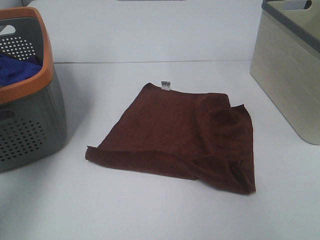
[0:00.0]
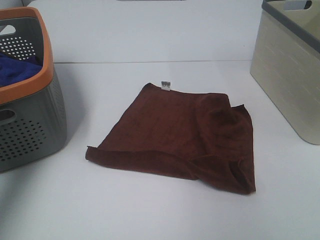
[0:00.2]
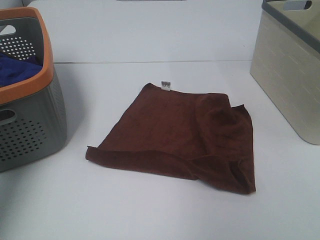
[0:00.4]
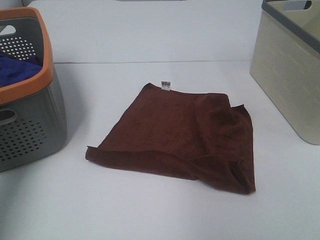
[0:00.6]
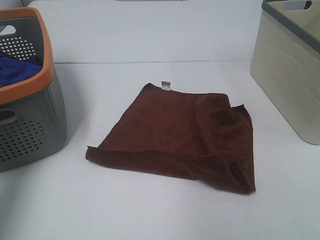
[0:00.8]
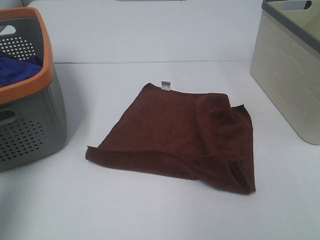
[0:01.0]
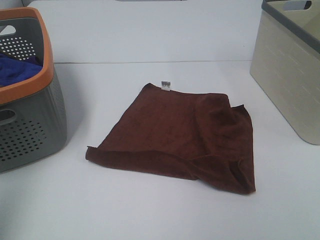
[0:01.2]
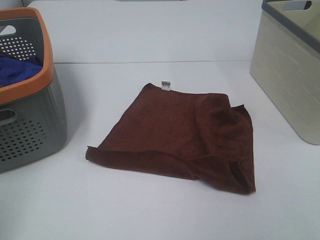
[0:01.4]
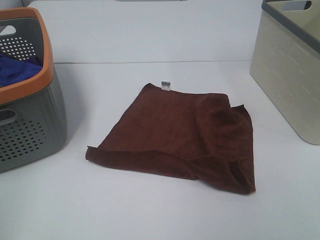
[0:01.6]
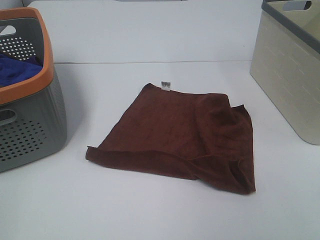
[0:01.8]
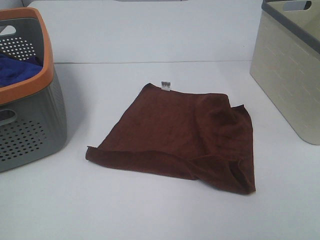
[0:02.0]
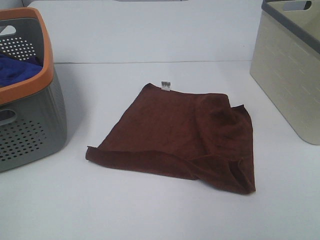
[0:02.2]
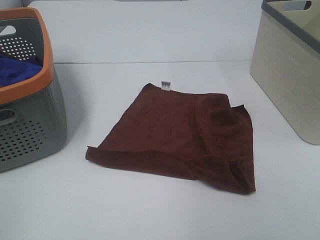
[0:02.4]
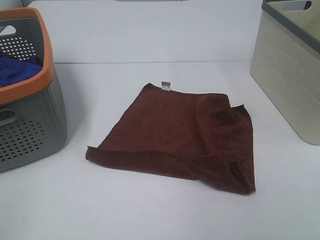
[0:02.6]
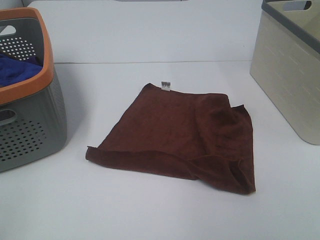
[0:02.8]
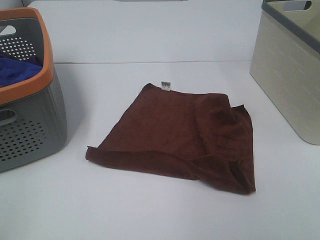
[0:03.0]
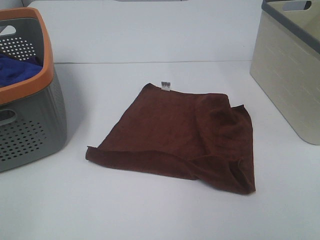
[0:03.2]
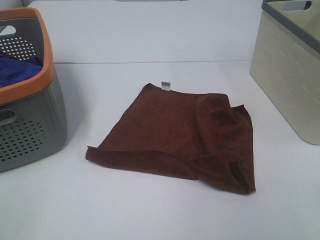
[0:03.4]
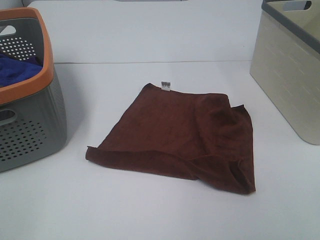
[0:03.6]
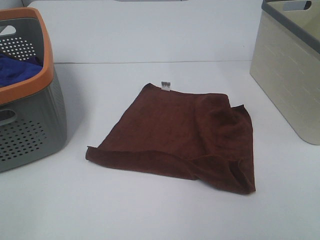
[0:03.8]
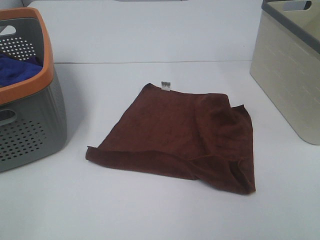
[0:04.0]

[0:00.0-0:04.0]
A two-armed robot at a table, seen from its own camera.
Task of the whole recording: Remove the towel and place it.
0:00.0 to 0:01.4: The left gripper is displaced backward by approximately 35 cm.

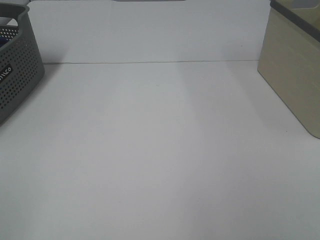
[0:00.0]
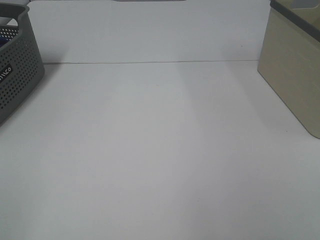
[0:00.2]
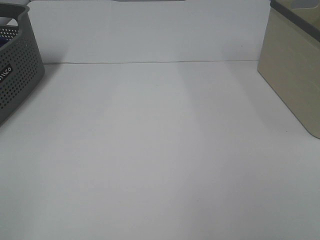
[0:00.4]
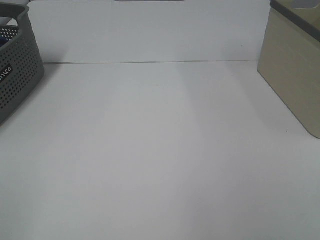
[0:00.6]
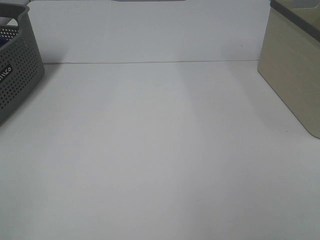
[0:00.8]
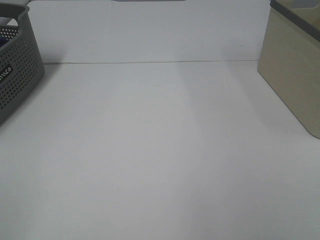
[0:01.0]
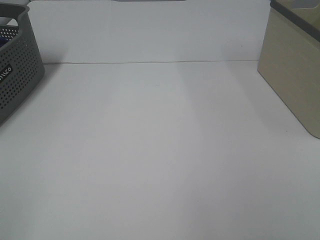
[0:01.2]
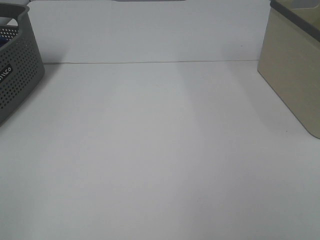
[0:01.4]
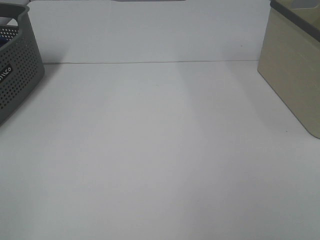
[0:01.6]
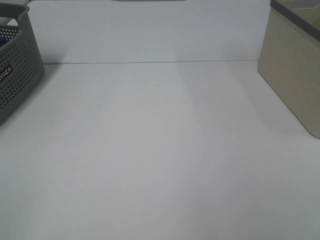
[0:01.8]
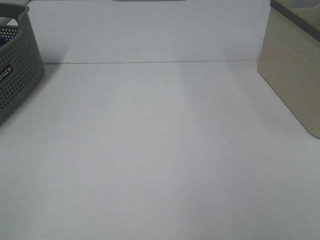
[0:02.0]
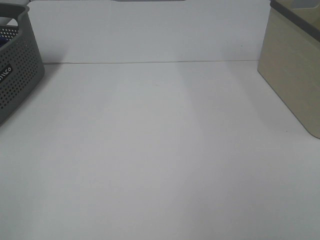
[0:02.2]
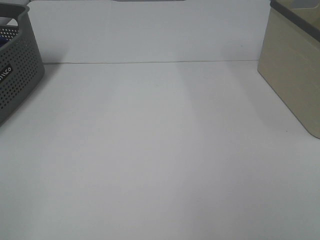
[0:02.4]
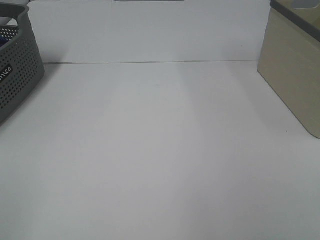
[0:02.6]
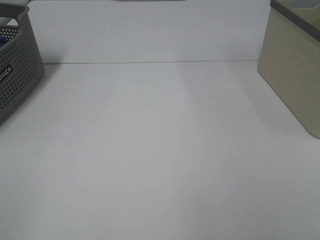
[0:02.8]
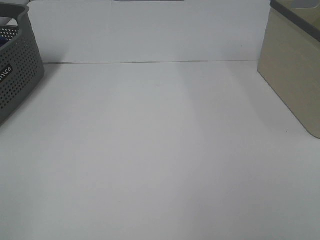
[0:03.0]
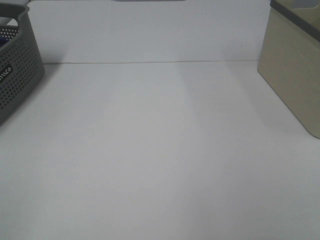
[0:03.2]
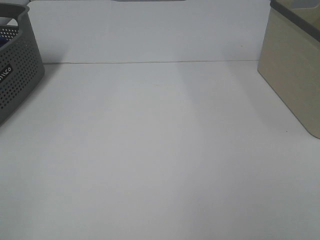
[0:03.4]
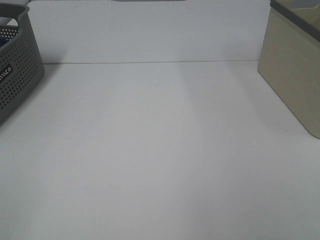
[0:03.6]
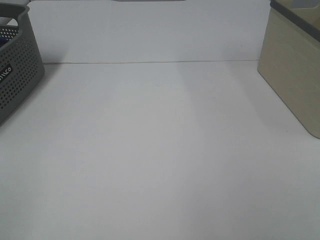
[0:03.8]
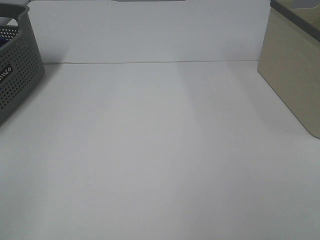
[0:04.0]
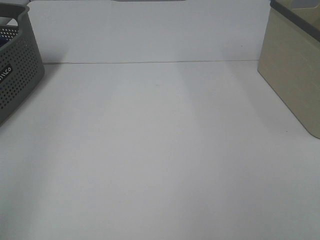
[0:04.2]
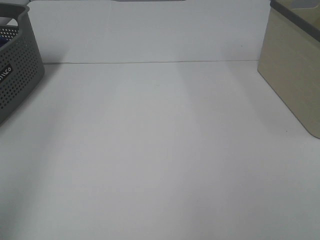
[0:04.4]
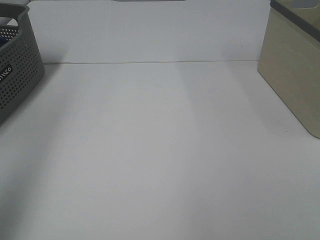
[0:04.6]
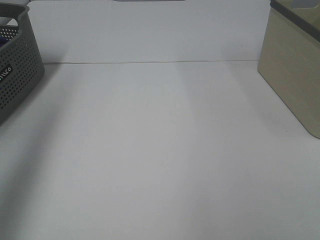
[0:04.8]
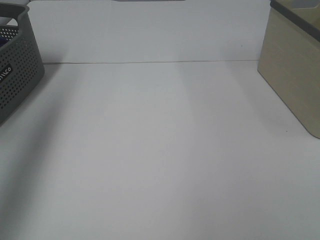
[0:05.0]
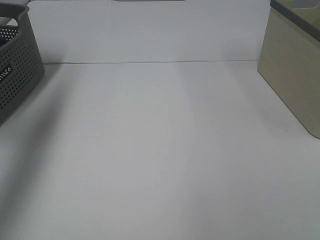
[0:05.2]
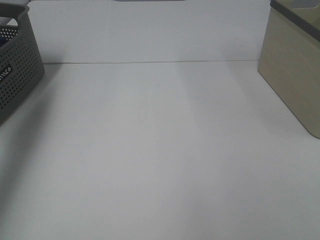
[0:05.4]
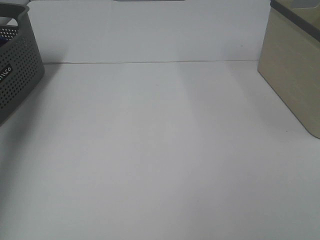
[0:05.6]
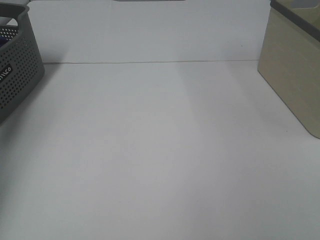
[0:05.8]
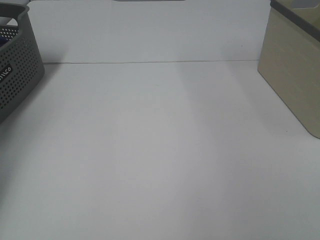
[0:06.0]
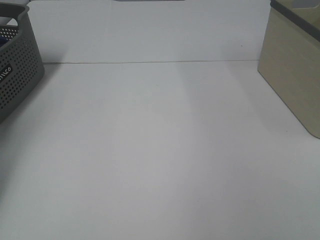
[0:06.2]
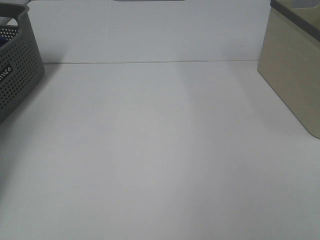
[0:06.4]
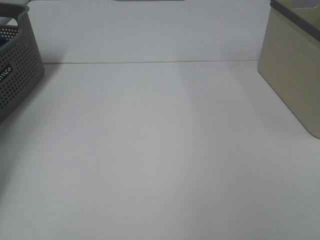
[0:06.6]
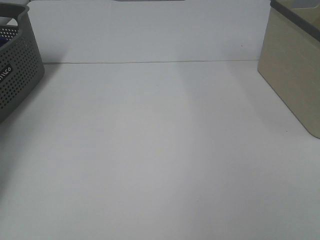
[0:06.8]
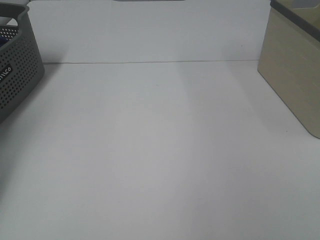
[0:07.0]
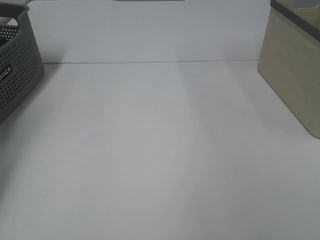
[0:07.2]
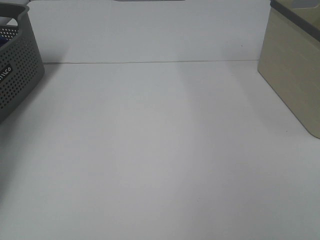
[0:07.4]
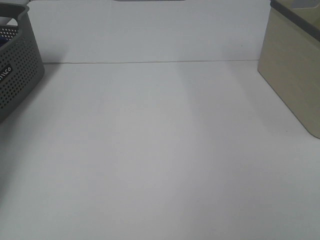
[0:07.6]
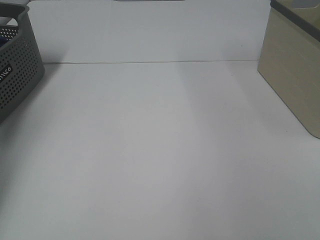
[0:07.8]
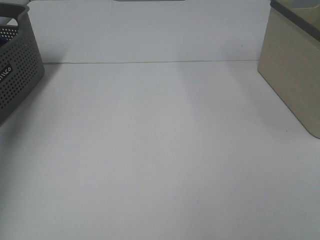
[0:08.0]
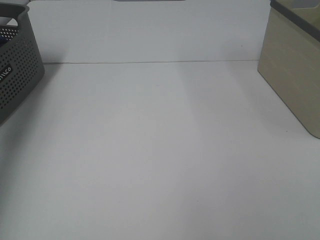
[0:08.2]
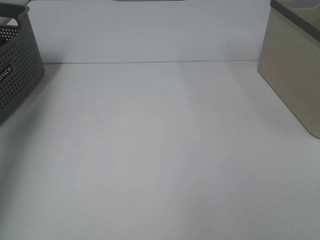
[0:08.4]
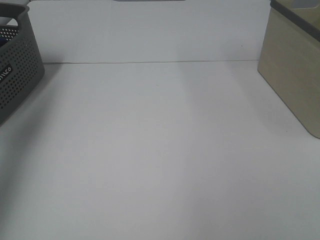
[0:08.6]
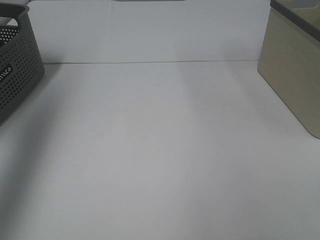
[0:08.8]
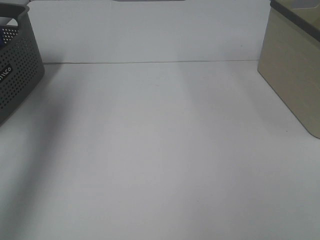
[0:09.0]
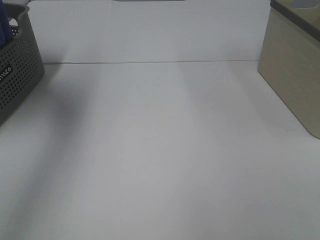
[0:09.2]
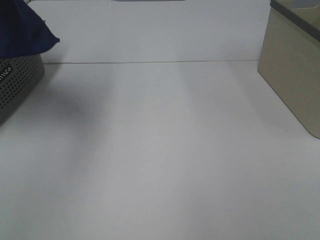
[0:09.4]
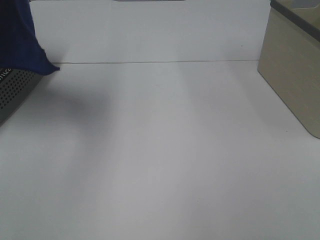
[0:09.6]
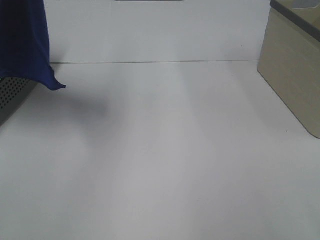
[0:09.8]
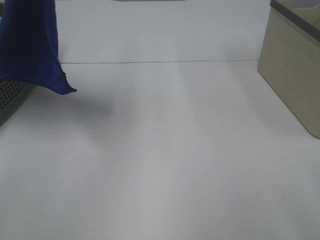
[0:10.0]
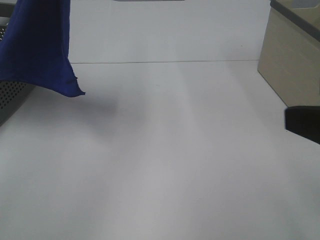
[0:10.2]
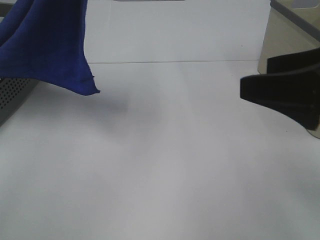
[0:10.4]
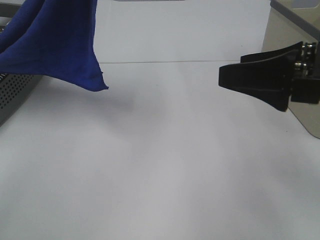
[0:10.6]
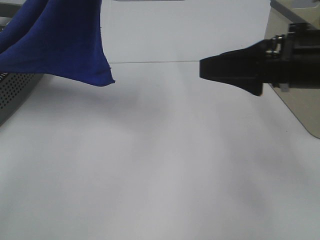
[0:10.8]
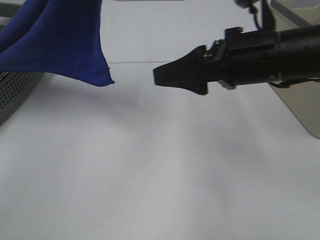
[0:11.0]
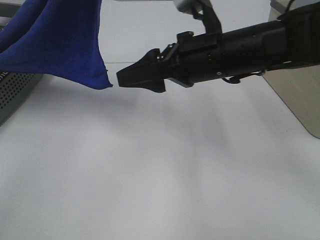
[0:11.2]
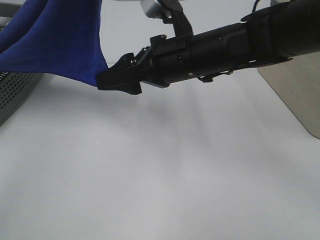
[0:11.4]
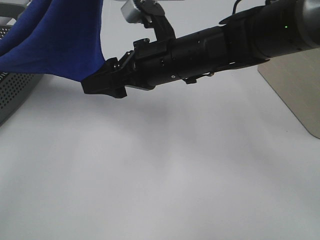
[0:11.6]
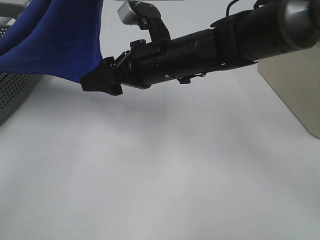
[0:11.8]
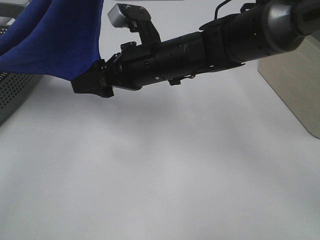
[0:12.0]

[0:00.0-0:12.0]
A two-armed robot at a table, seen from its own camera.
Task of the whole recording: Remove the towel and place it.
0:00.0 to 0:03.0: Both grippers stay about where they are.
0:04.4 to 0:06.0: The left gripper moves forward and downward, about 40 cm.
0:07.6 to 0:09.0: The left gripper shifts some 40 cm upward and backward.
0:09.0 to 0:10.4: The left gripper moves to the right and downward, about 20 cm. Meanwhile the right gripper moves forward and to the left, roughly 15 cm.
0:10.4 to 0:12.0: The right gripper is displaced to the left, forward and downward by some 30 cm.

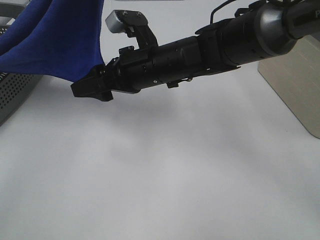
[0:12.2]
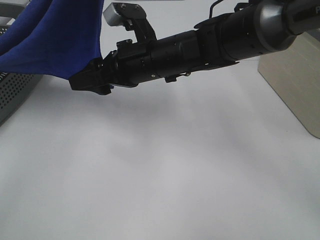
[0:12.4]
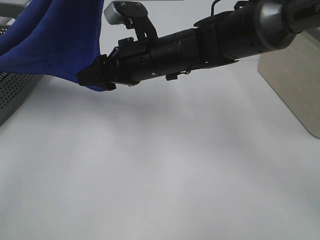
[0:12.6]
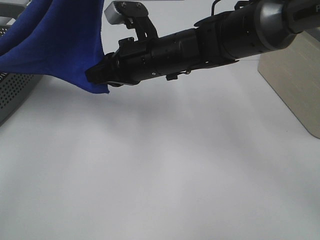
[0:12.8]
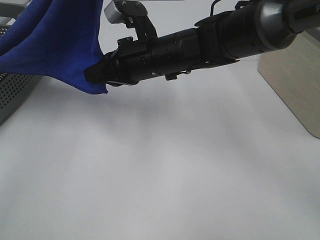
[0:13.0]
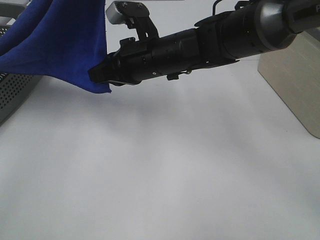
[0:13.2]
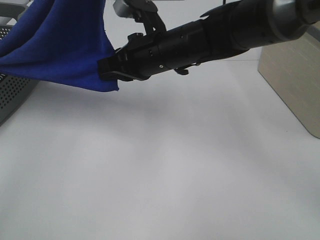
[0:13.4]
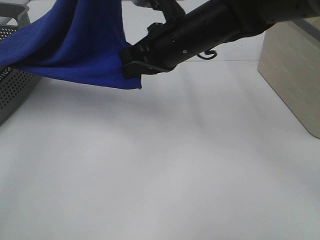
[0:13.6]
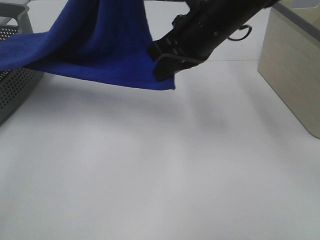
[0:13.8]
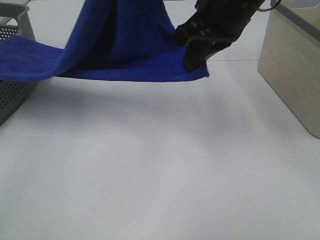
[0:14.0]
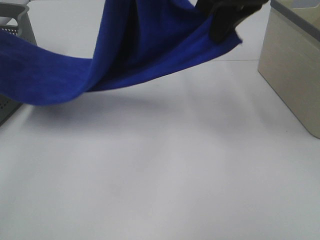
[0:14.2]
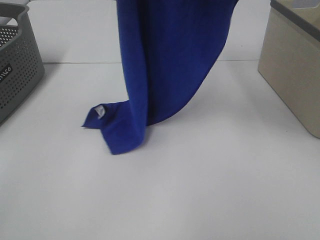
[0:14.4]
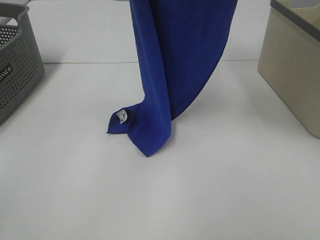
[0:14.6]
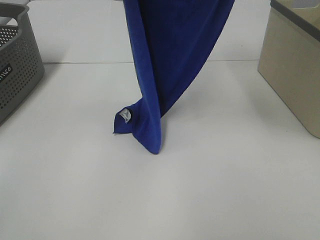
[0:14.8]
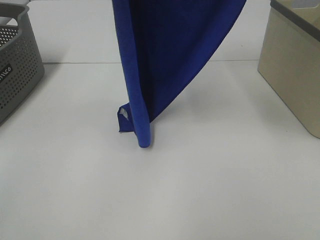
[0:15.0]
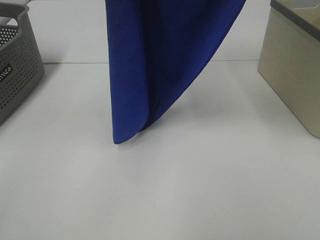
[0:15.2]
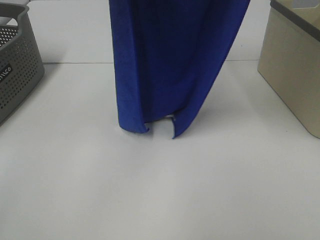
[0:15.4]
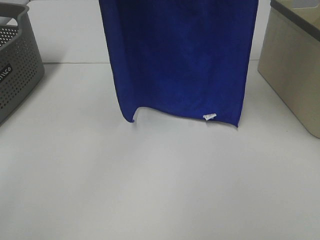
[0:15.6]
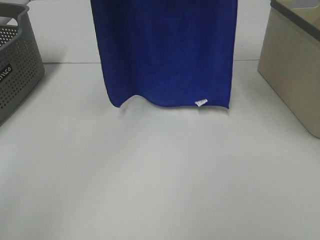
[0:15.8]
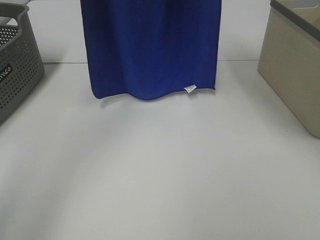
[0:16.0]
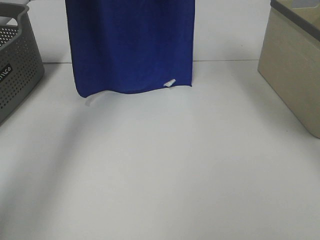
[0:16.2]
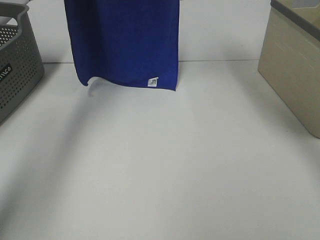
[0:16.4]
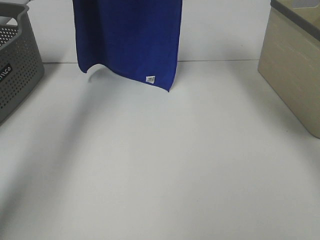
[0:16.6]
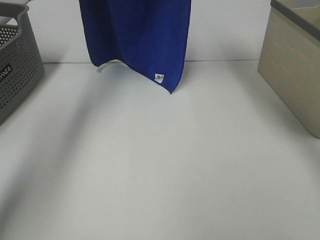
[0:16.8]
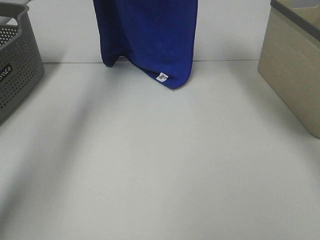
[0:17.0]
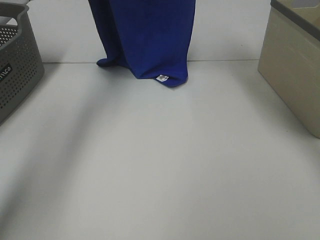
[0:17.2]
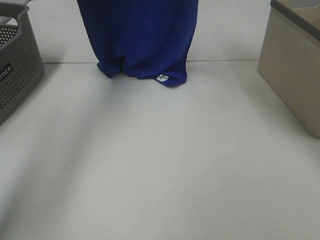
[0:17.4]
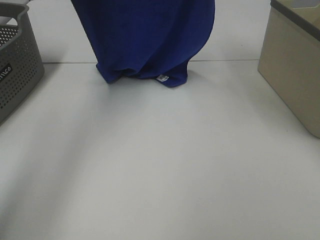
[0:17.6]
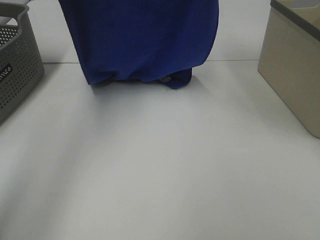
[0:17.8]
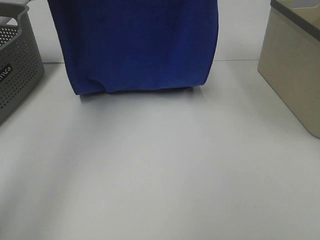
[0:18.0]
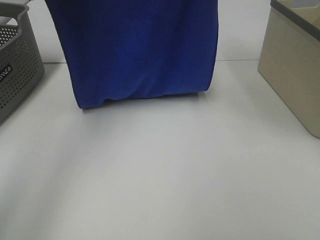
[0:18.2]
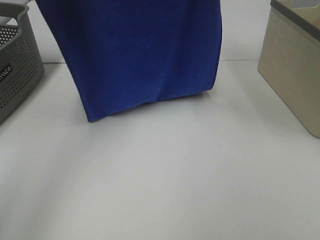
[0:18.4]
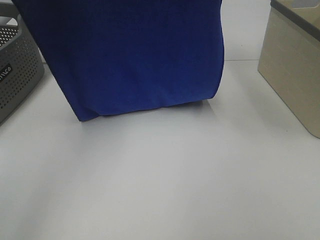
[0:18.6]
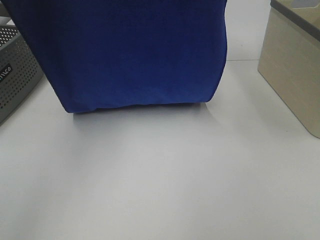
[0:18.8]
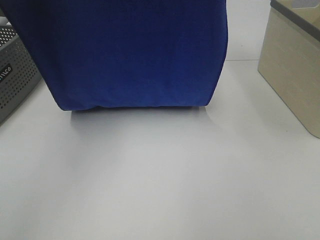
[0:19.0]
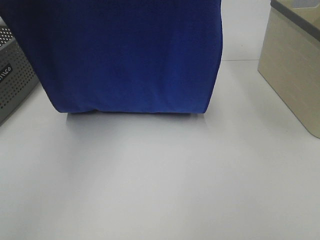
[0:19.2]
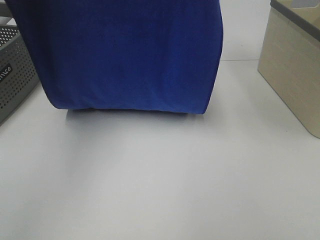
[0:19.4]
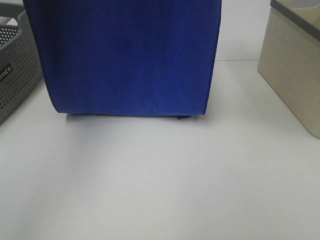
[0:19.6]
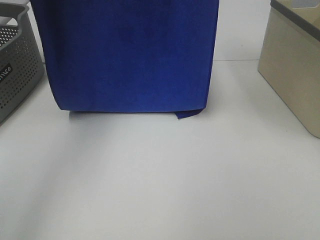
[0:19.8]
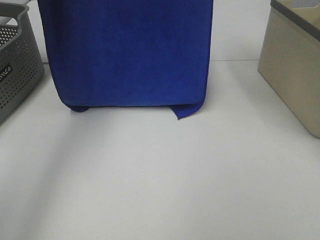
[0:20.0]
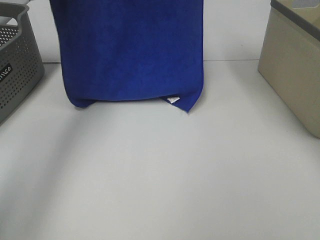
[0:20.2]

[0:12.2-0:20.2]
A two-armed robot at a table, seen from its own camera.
Task of the whole recording: Remove the towel and place it.
0:12.2 to 0:13.8: The right gripper heads upward and to the right, covering some 10 cm, and closes up.
0:13.8 to 0:15.4: The right gripper is displaced upward by roughly 25 cm. Meanwhile the left gripper moves upward, approximately 5 cm.
0:15.4 to 0:17.0: The left gripper heads forward, covering roughly 20 cm; the right gripper heads forward and downward, covering some 20 cm.
0:17.0 to 0:18.6: Both grippers move backward, some 20 cm.
0:18.6 to 0:20.2: The right gripper travels forward and upward by some 15 cm. The left gripper is displaced forward by roughly 10 cm.
